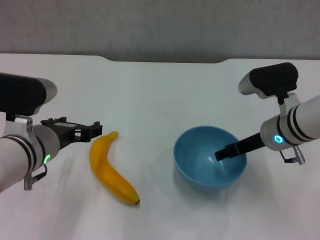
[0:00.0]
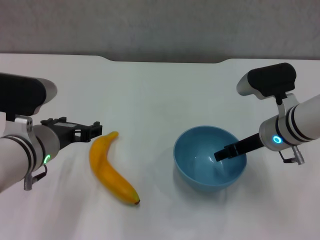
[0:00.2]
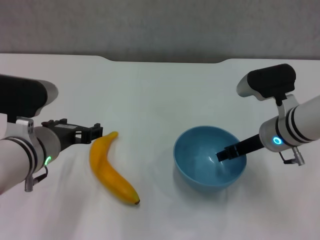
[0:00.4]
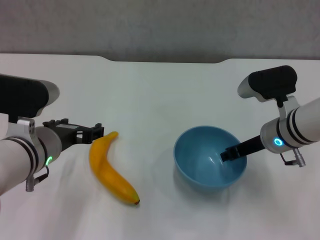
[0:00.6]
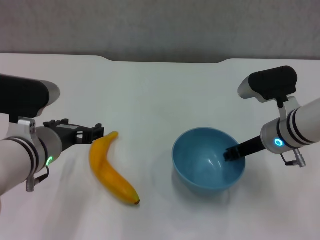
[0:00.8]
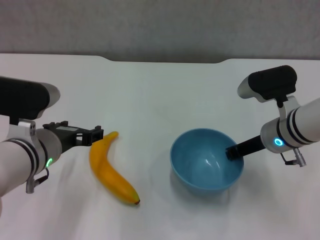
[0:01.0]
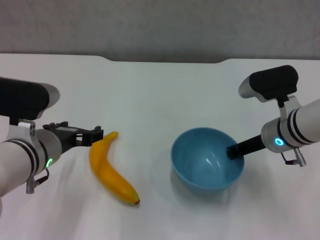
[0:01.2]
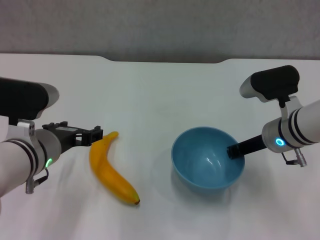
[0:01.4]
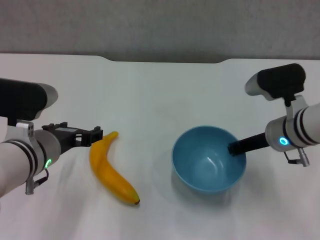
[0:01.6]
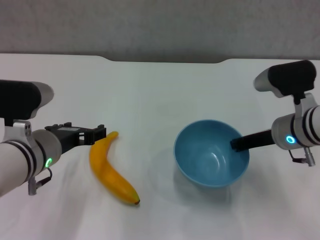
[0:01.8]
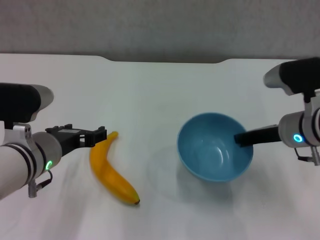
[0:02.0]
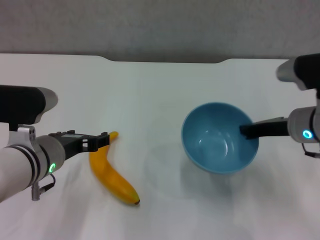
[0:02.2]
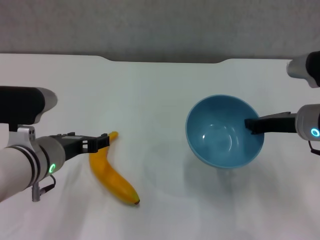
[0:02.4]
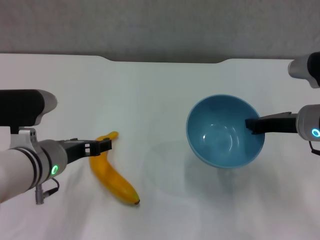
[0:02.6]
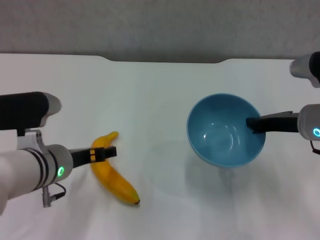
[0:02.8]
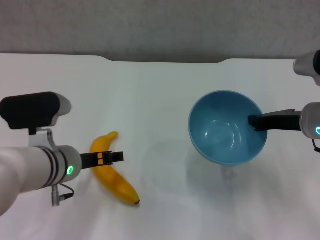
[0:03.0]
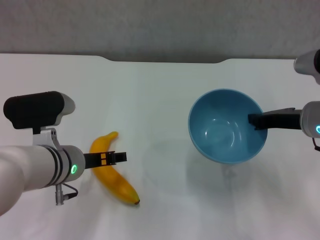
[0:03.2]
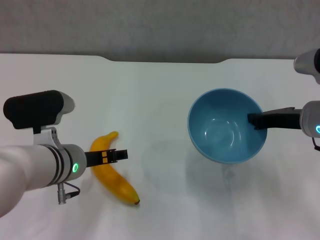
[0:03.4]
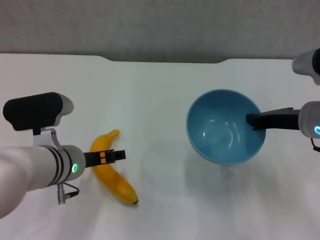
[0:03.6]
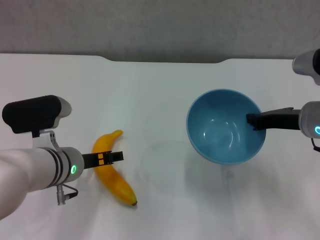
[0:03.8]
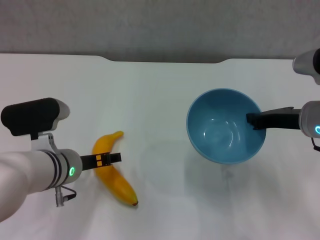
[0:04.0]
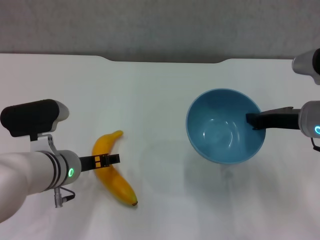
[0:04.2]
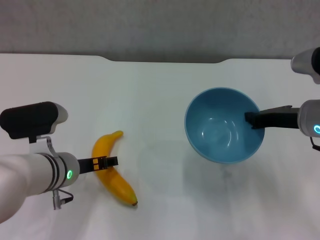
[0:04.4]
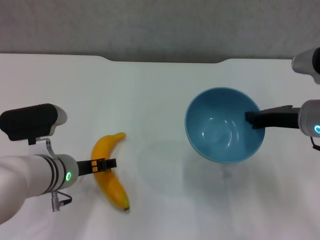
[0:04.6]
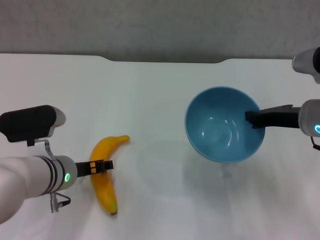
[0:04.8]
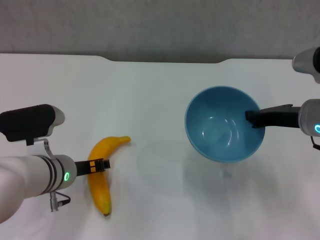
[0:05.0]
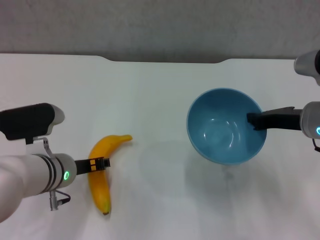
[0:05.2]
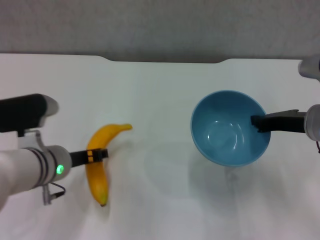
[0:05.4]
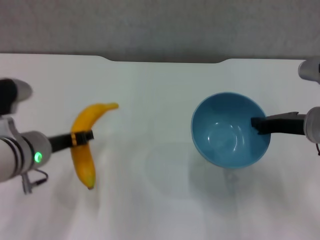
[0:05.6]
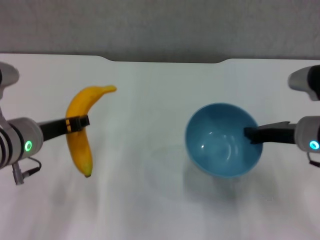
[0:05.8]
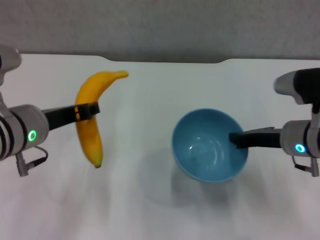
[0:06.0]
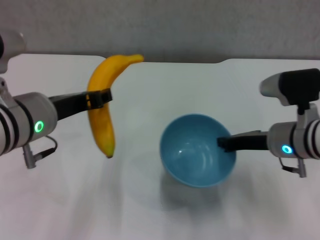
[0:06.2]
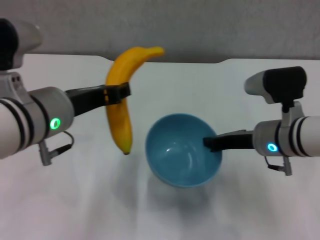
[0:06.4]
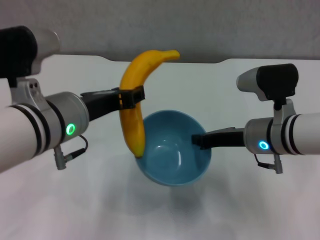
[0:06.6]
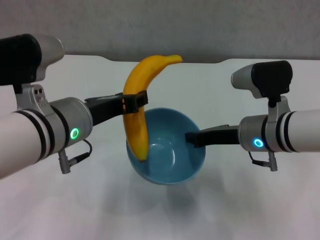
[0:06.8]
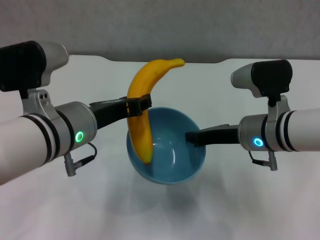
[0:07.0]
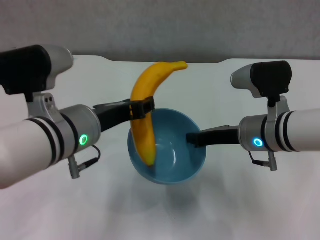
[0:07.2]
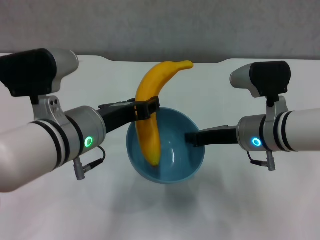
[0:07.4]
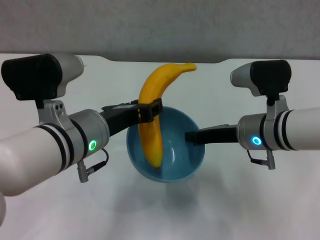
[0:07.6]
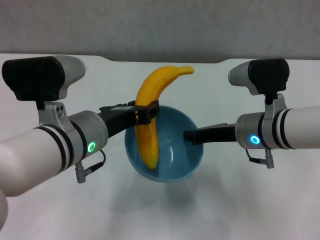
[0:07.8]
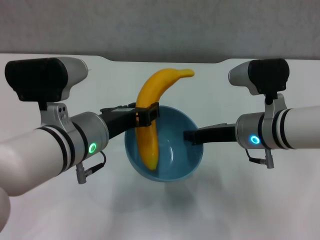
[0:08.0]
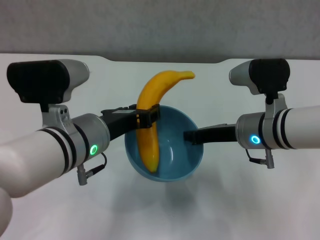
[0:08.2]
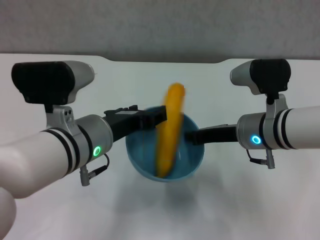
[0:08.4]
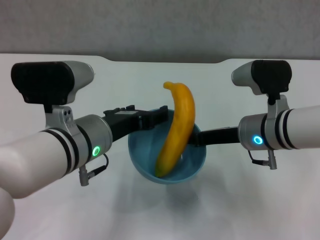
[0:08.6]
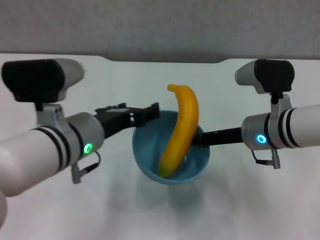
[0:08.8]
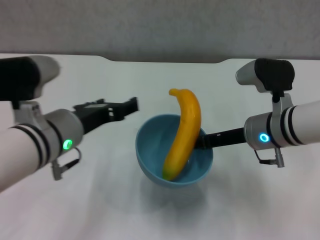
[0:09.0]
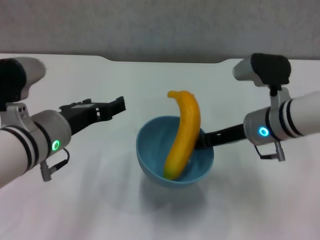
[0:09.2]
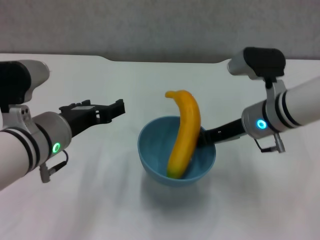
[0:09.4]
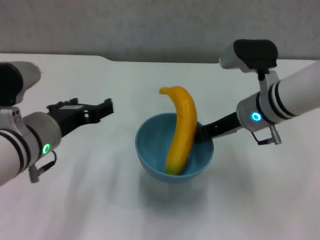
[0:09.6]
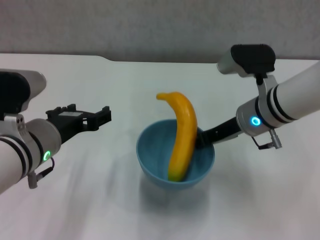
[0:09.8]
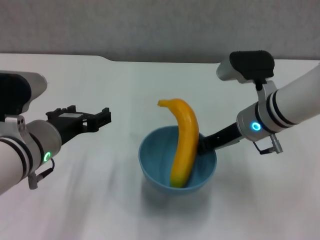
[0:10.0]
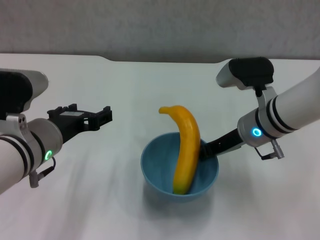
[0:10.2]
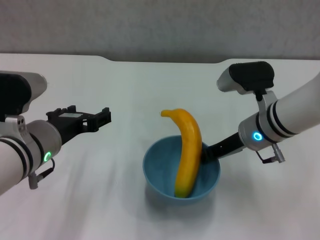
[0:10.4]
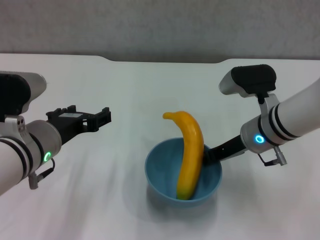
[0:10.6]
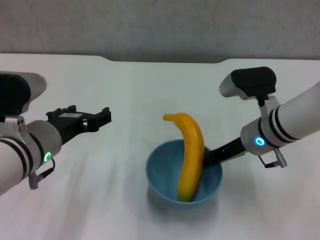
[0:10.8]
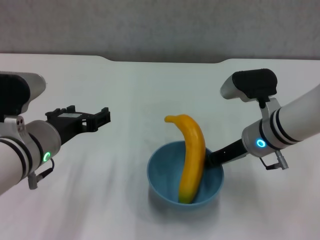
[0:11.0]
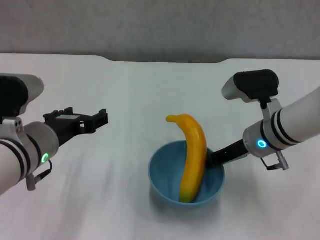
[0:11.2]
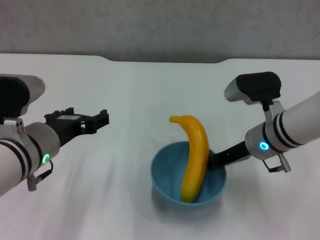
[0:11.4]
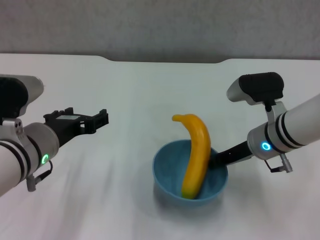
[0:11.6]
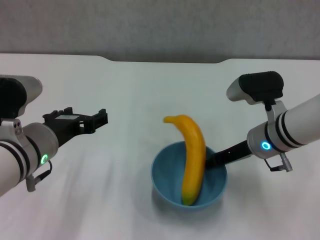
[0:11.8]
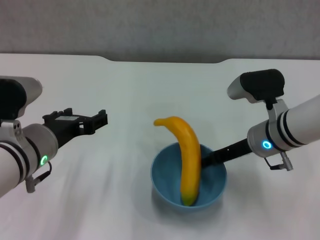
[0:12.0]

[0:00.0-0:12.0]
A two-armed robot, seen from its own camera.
Step, 0:01.2 to 0:02.2: Lift the blue bowl with right gripper.
Step, 0:02.6 to 0:05.0: Grasp the banana with left gripper.
Step, 0:05.2 to 0:08.4: Place the banana in the blue bowl with left gripper.
0:00.0 to 0:01.6: The right gripper closes.
0:01.6 to 0:03.0: The right gripper shifts by roughly 5 cm.
0:03.0 to 0:04.4: The grippers move only a little.
0:04.4 to 0:06.0: The left gripper shifts roughly 10 cm upward, and closes.
0:06.0 to 0:07.6: The left gripper is displaced to the right by about 5 cm, while the right gripper is displaced to the left by roughly 5 cm.
0:07.6 to 0:09.0: The left gripper opens.
0:10.4 to 0:12.0: The grippers move only a little.

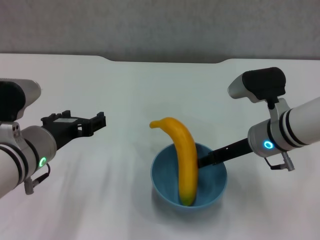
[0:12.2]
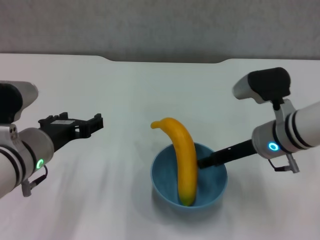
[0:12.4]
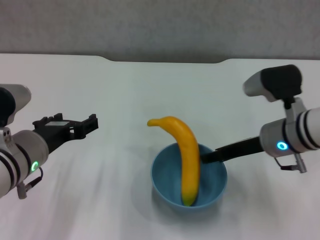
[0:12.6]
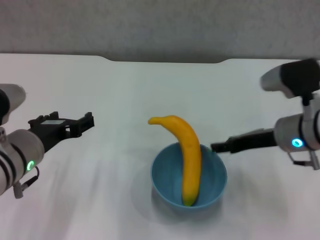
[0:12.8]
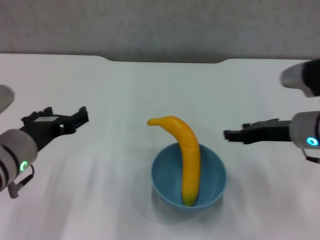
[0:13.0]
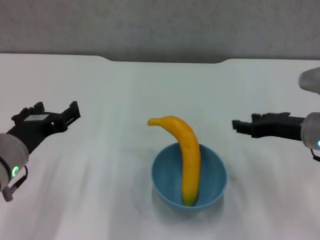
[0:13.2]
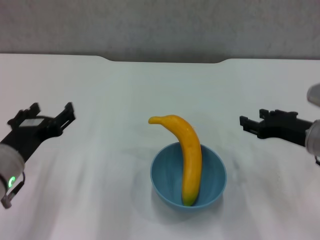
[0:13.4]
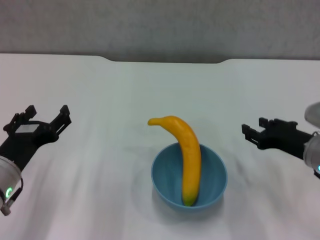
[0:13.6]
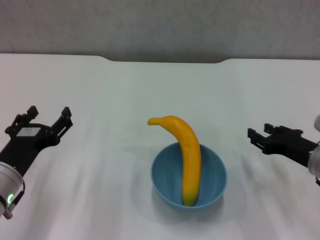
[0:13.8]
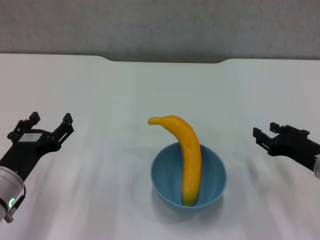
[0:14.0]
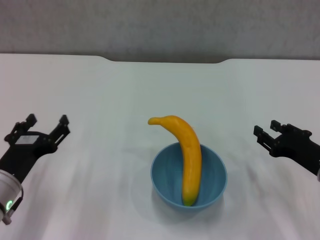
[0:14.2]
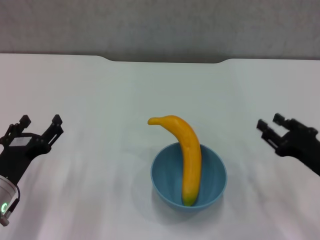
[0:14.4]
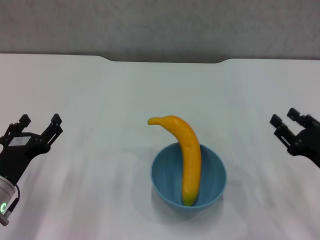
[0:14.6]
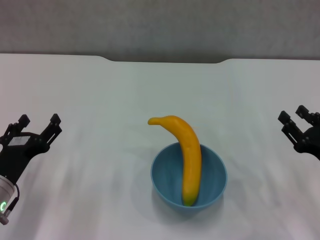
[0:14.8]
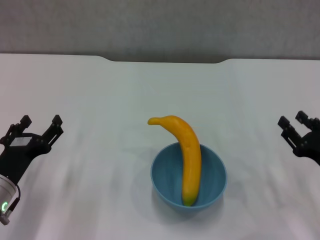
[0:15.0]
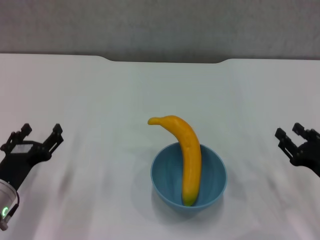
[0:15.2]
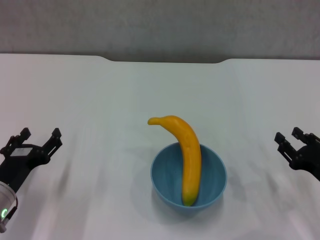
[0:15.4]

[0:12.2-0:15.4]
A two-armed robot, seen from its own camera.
0:12.2 to 0:13.8: The right gripper travels to the right and backward by about 10 cm; the left gripper is displaced downward and to the left by roughly 10 cm.
0:13.8 to 0:15.4: The left gripper is displaced downward by roughly 5 cm. The right gripper travels backward by about 5 cm.
